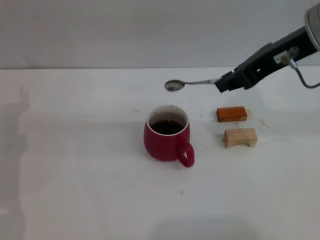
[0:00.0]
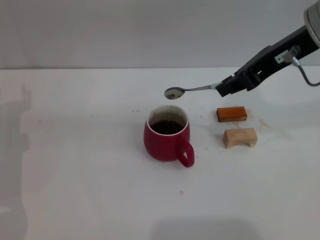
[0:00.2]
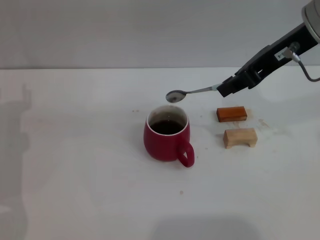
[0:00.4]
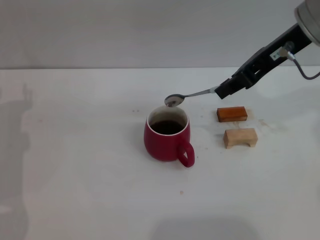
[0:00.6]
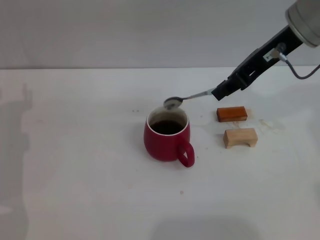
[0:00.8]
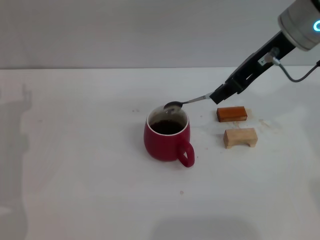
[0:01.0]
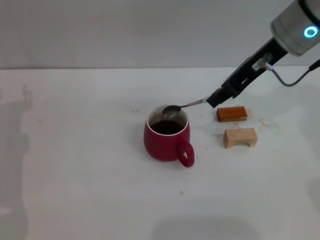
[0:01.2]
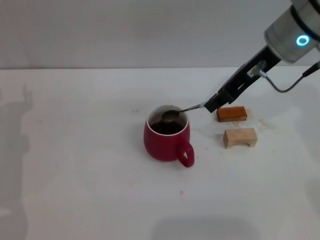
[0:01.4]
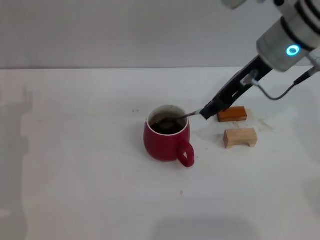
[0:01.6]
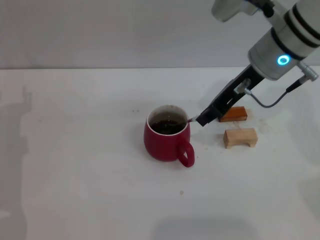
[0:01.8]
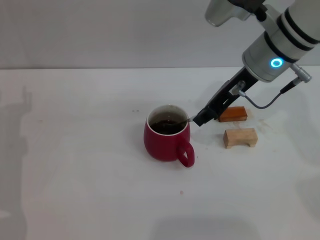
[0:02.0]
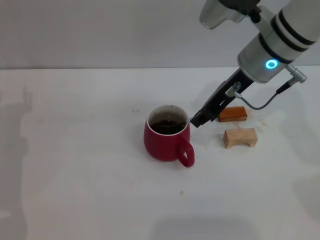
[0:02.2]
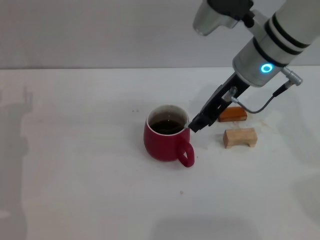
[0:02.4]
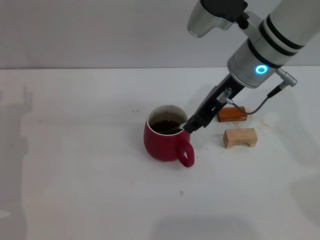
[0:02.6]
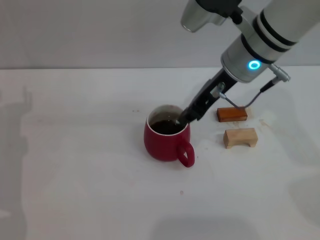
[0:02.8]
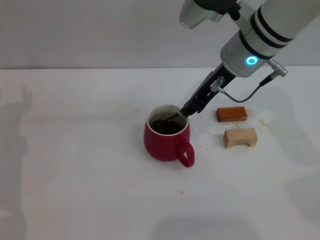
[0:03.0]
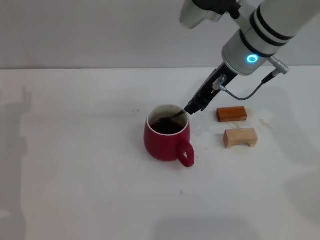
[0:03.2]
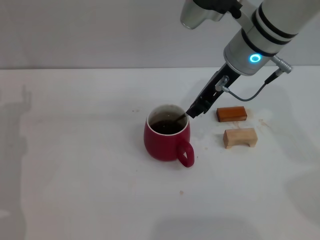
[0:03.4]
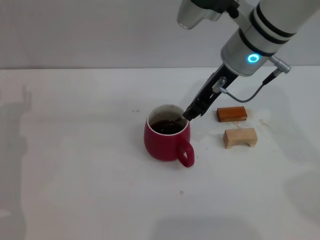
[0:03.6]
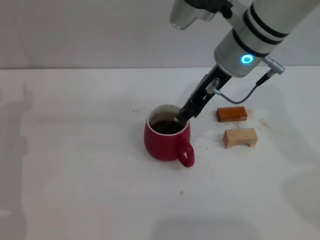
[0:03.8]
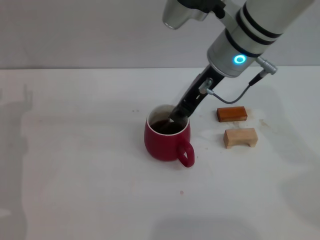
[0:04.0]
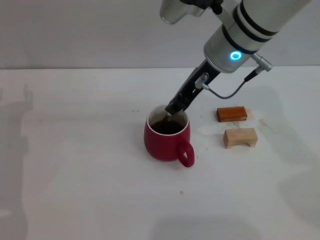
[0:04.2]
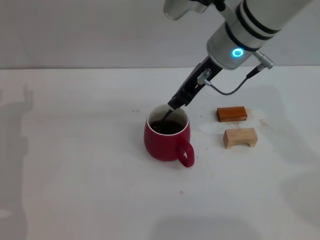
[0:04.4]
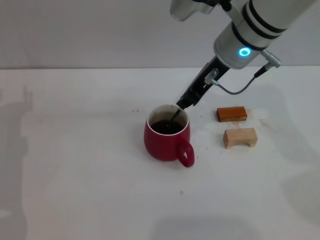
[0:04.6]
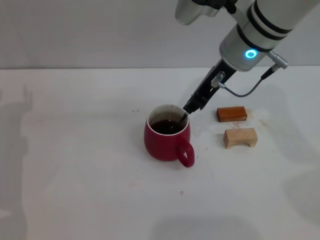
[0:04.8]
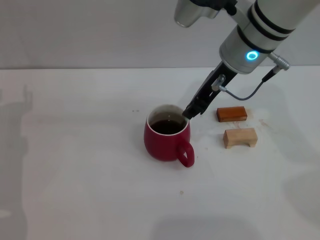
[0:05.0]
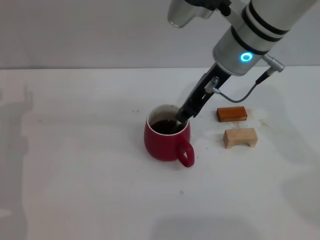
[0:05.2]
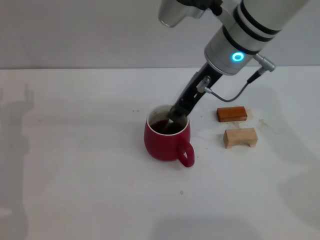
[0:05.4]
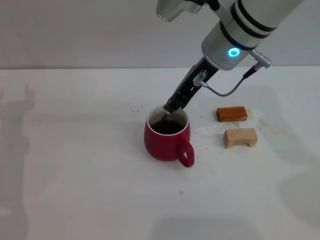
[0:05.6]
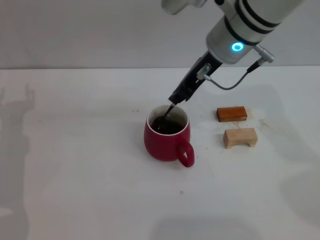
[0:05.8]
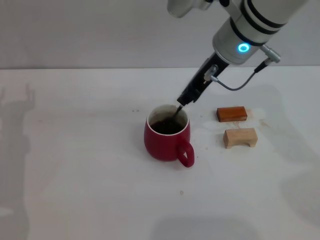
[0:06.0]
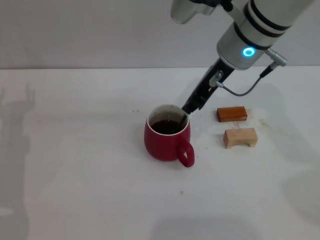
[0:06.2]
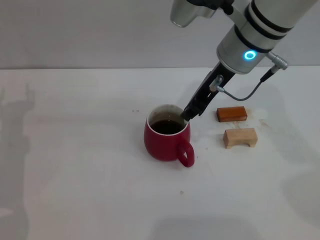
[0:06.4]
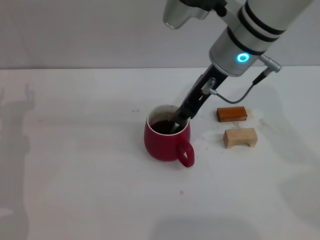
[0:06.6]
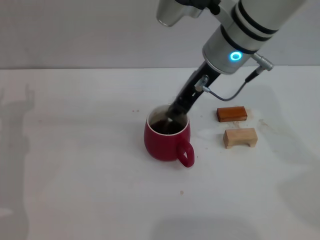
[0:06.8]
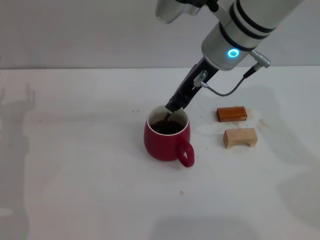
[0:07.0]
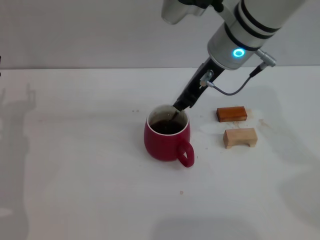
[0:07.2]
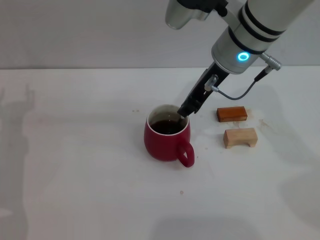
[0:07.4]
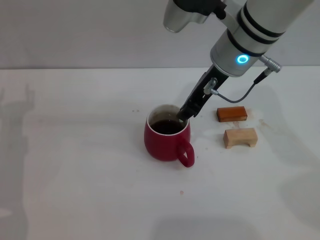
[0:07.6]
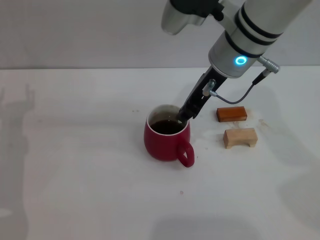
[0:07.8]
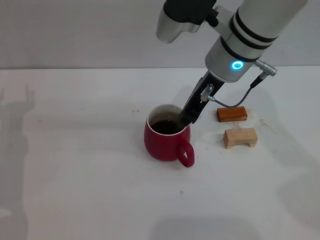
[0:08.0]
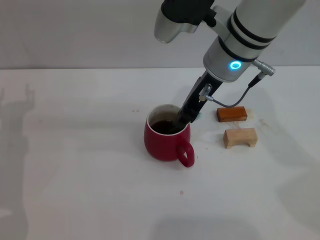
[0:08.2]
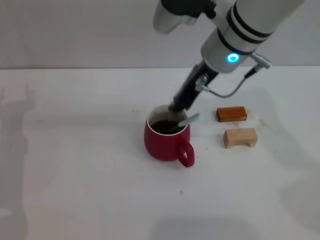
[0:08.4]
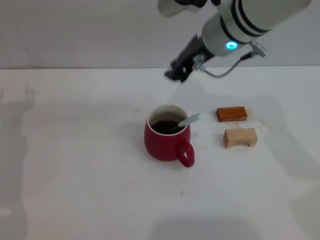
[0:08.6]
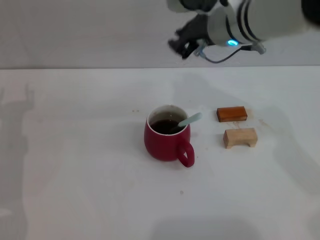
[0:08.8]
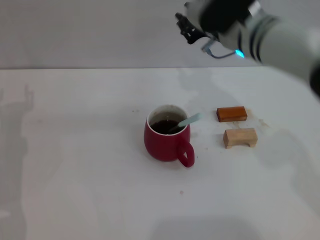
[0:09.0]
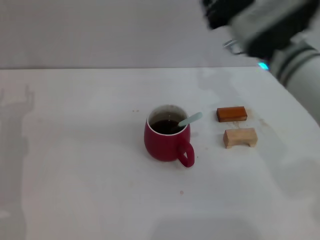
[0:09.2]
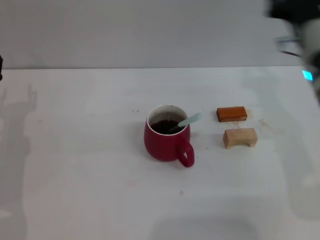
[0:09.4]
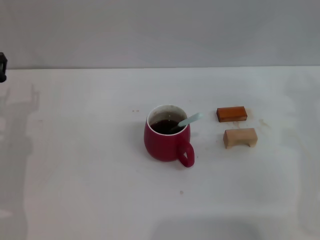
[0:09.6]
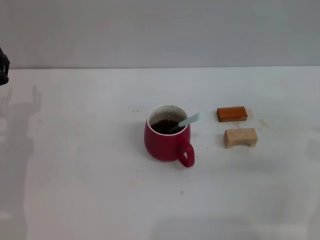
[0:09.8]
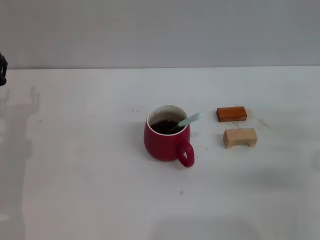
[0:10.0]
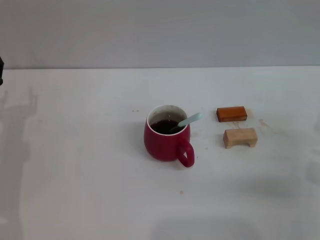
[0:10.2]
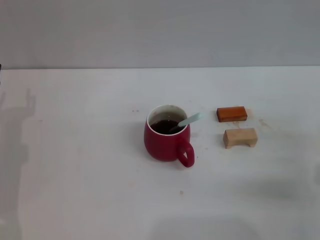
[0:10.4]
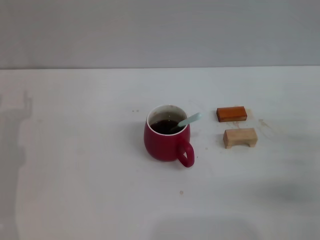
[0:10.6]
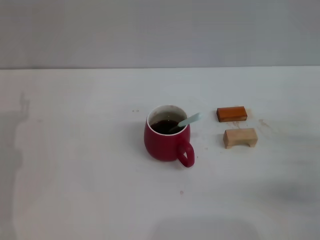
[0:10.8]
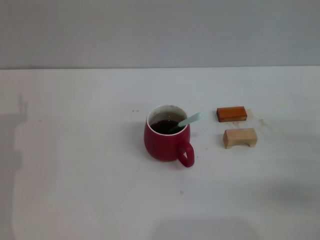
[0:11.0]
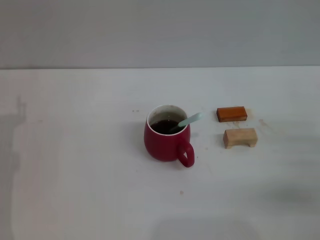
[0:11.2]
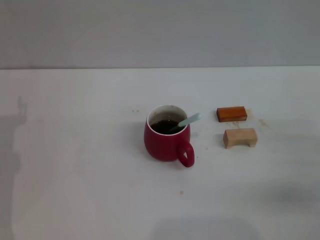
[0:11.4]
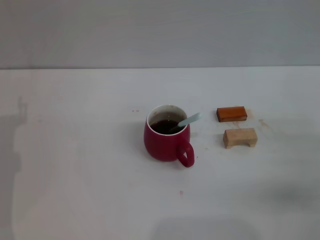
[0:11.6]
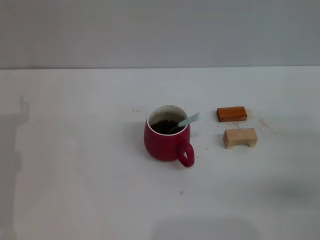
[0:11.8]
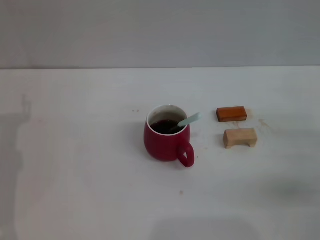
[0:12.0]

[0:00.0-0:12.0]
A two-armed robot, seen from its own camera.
Task of the whole recording: Move the red cup to the center, lift the blue spoon, stir it three times in the cup, and put the spoon into the cup.
Step, 0:00.0 to 0:08.2: Stir the coffee with right gripper.
0:00.0 to 0:01.6: The right gripper shifts some 10 cm downward and forward.
0:01.6 to 0:03.0: There are only small adjustments of the grippers.
0:03.0 to 0:07.6: There are only small adjustments of the grippers.
0:09.0 to 0:10.4: The right gripper goes approximately 25 cm to the right, backward and downward.

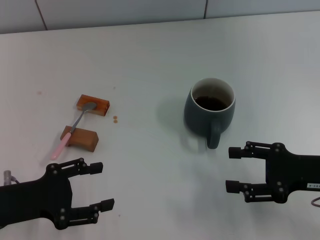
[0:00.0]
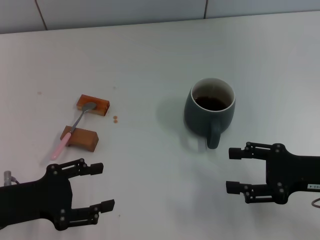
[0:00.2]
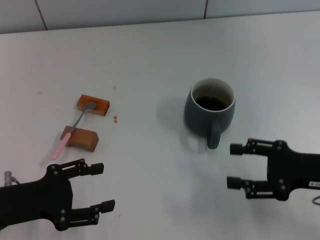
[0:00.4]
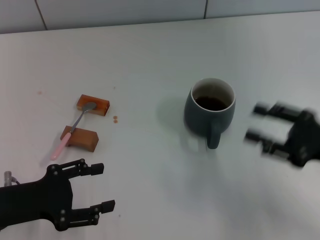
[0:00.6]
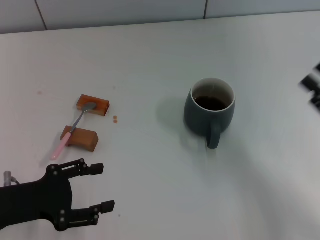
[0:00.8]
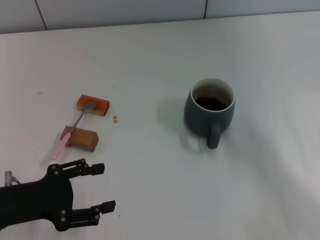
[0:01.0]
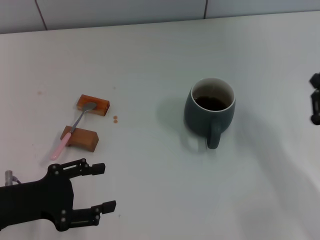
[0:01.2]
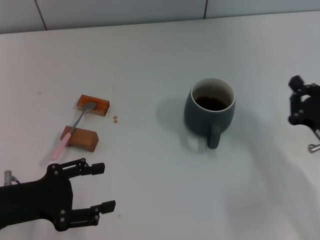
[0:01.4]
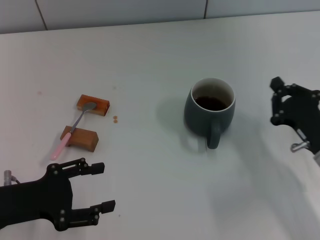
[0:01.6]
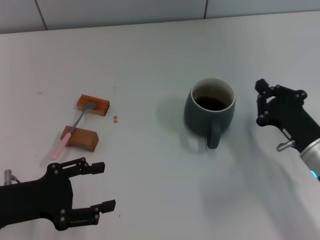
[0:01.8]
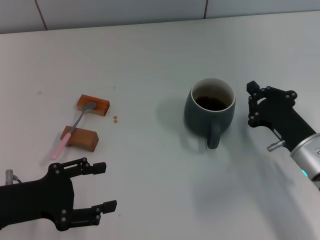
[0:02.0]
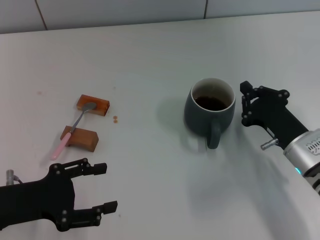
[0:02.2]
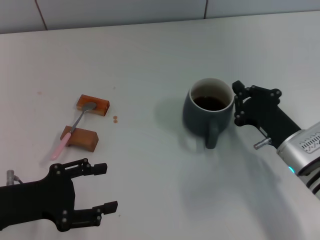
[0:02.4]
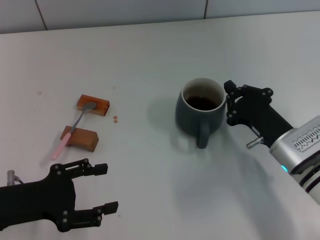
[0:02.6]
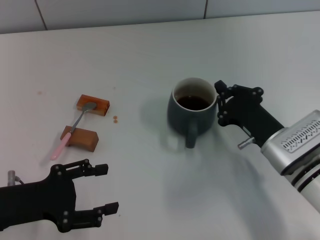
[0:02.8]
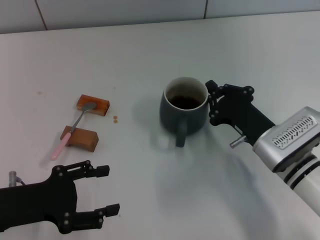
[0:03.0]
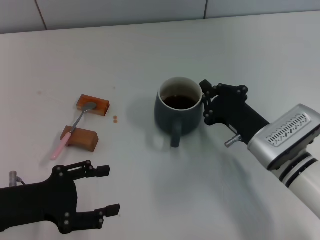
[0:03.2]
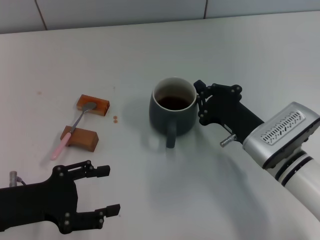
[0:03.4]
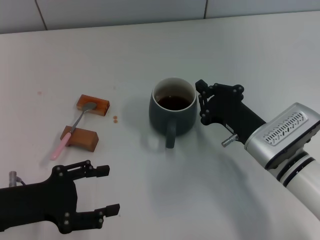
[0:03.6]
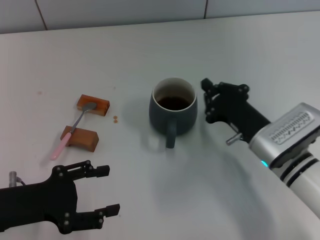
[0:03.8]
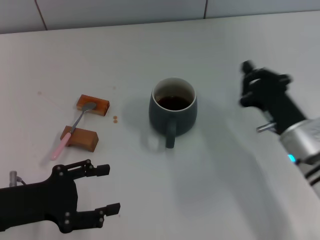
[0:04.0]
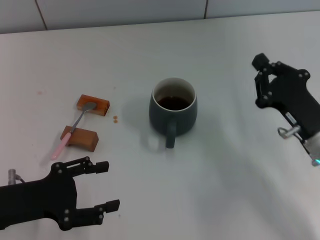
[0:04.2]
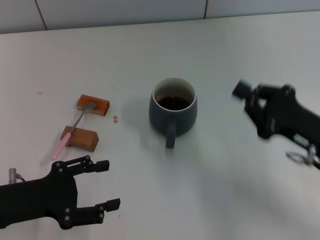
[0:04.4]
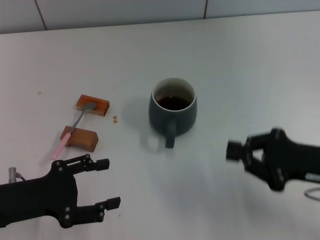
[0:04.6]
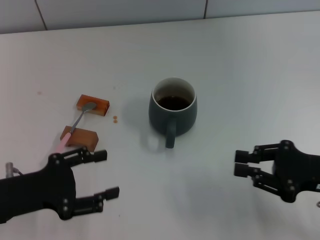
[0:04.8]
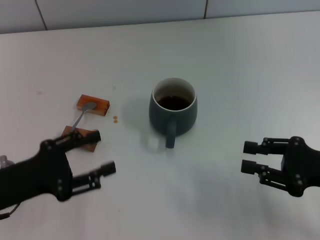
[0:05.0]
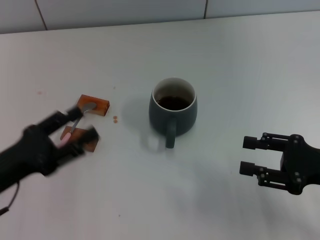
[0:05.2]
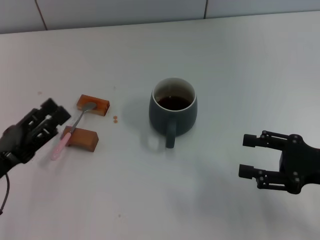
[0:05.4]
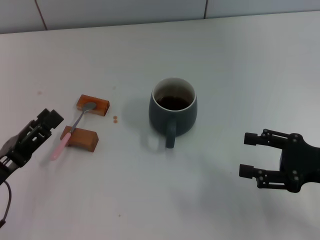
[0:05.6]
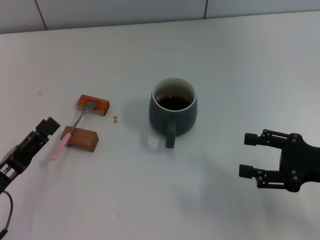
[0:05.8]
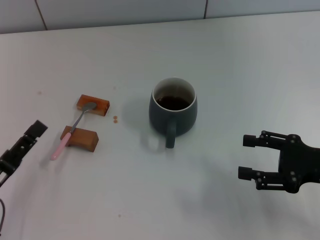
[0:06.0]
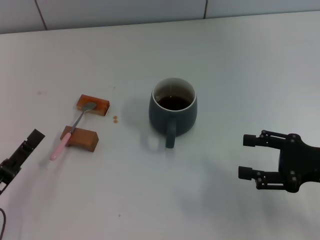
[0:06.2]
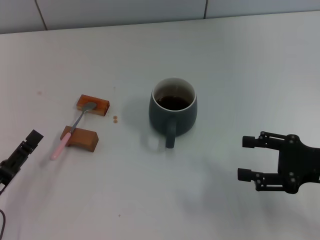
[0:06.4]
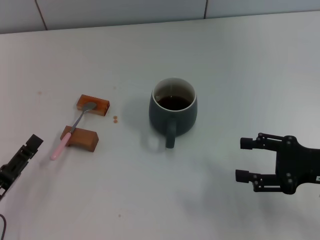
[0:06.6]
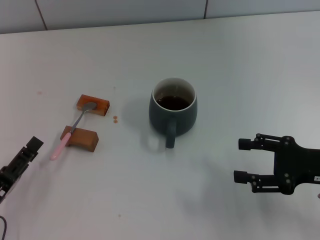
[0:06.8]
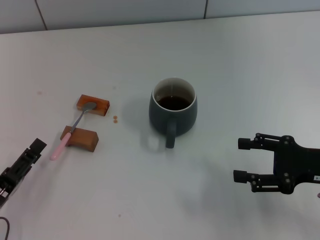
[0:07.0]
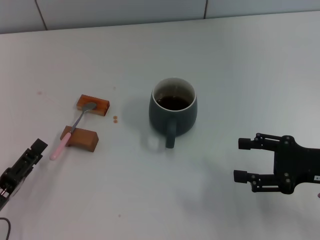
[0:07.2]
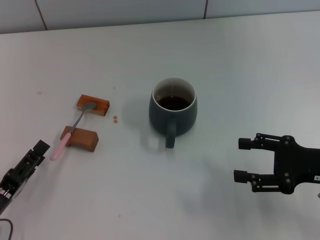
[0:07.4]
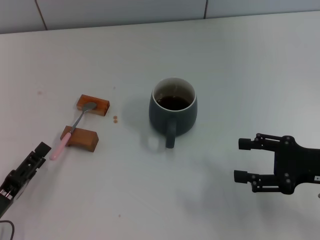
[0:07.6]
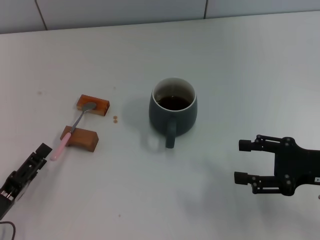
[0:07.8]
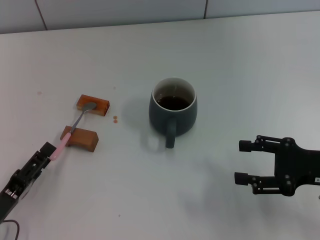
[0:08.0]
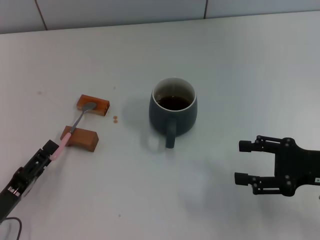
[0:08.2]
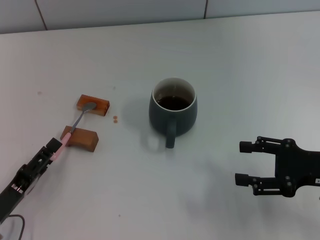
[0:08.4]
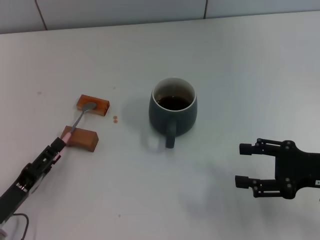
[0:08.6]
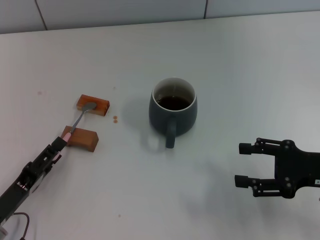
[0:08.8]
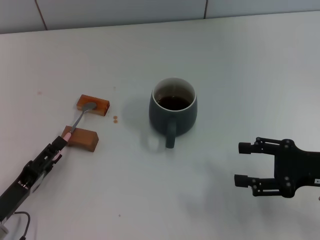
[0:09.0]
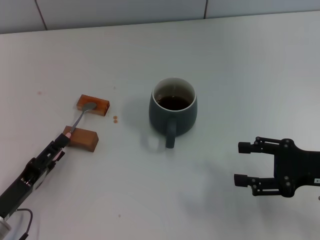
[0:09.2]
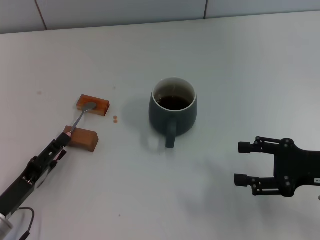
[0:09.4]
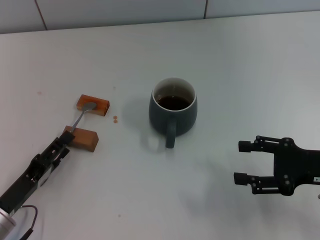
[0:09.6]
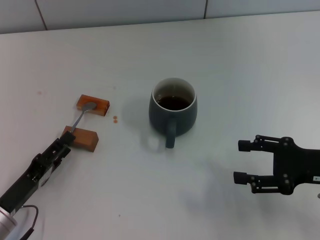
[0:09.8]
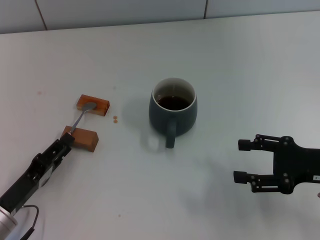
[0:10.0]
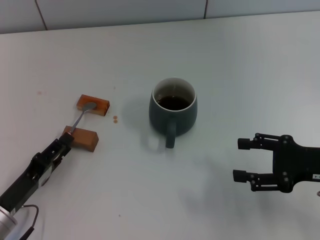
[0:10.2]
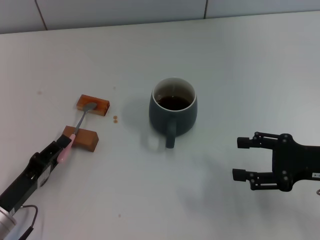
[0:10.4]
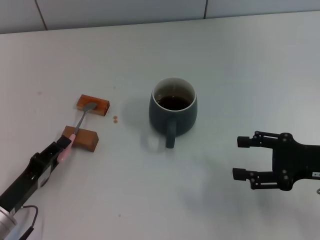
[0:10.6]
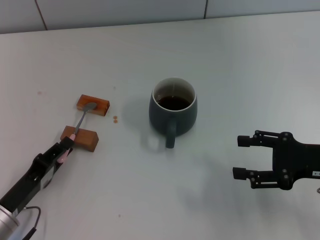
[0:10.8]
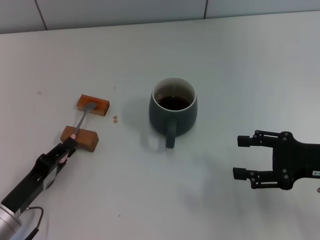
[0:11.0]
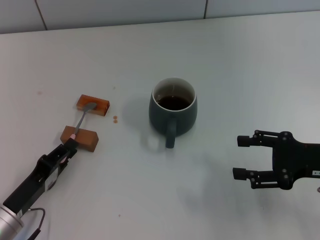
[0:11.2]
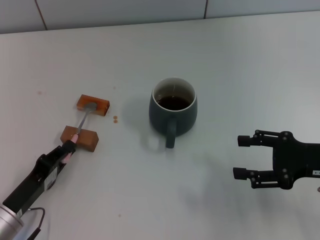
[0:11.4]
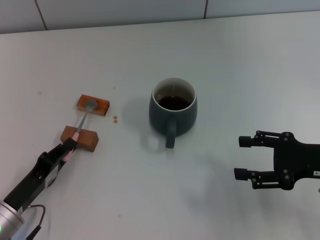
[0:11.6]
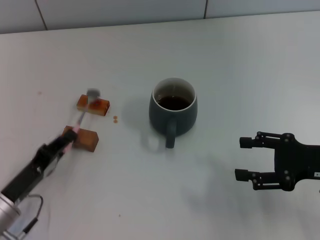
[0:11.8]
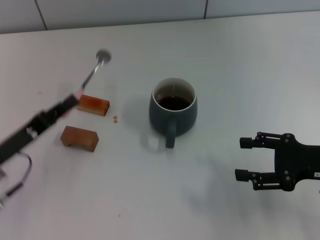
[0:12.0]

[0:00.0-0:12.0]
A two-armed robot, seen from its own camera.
Task of the whole recording: Move the grey cup to the center, lift the pink spoon, stir it three times in the cup, and put the spoon into the cup.
Step, 0:00.0 to 0:03.6: Move the cup with coffee to the center of view with the right gripper.
Step, 0:03.8 to 0:11.6: Pick up the spoon with the left gripper.
0:00.0 to 0:01.6: The right gripper moves downward, about 5 cm, and closes up.
0:01.6 to 0:03.0: The right gripper is displaced to the left by approximately 10 cm.
0:03.0 to 0:04.4: The right gripper travels to the right by some 10 cm.
0:04.4 to 0:06.0: The right gripper opens up; the left gripper ends up roughly 5 cm from where it was.
0:06.0 to 0:09.0: The grippers move only a little.
0:09.0 to 0:10.4: The left gripper closes.
0:10.4 to 0:12.0: The left gripper is displaced forward by some 5 cm, and closes.
